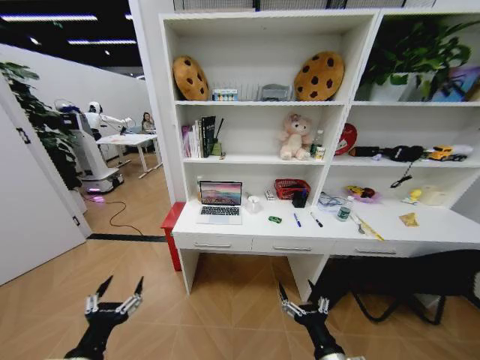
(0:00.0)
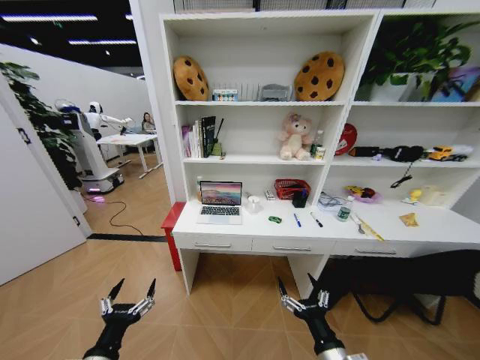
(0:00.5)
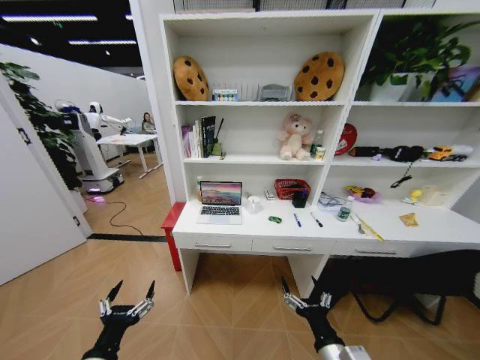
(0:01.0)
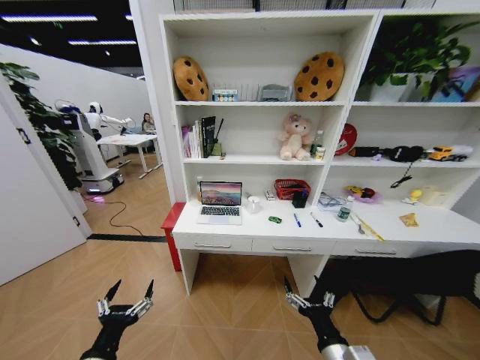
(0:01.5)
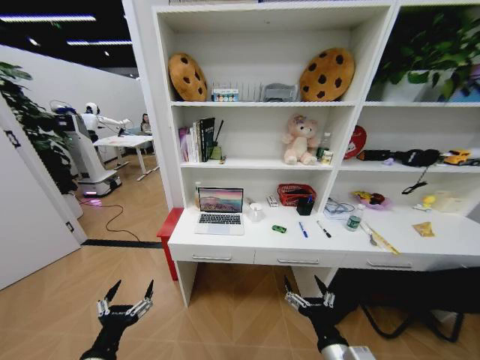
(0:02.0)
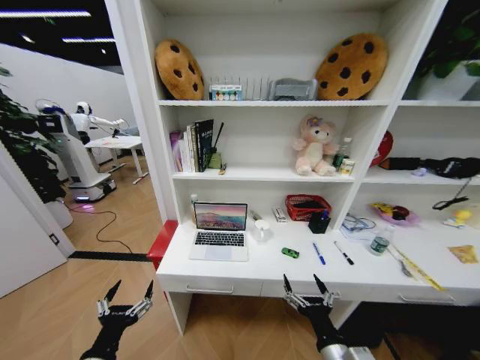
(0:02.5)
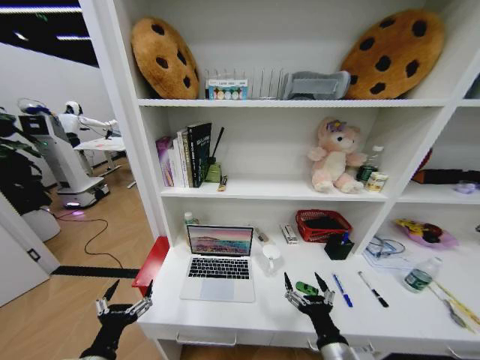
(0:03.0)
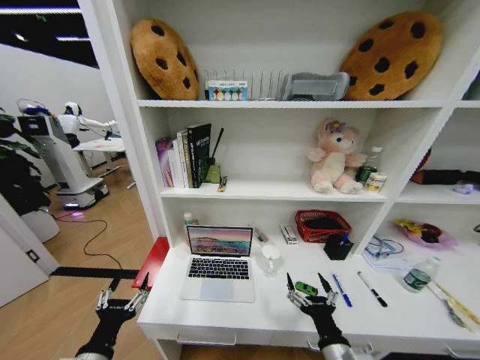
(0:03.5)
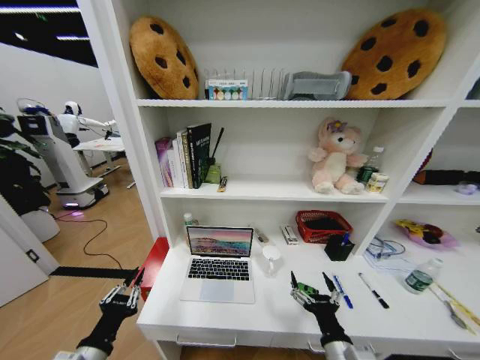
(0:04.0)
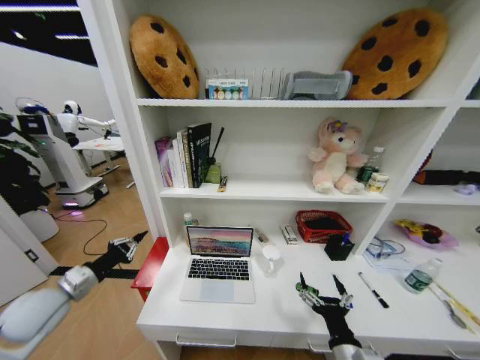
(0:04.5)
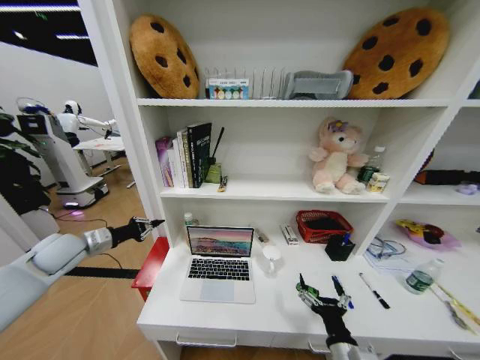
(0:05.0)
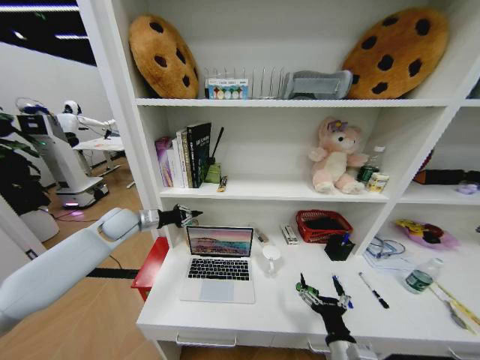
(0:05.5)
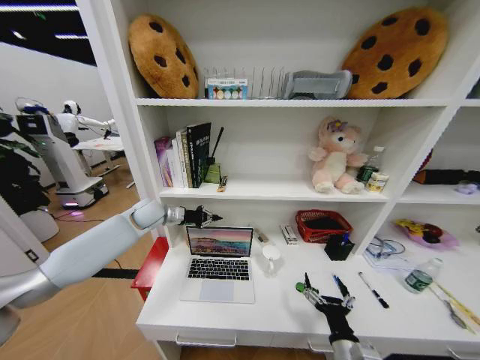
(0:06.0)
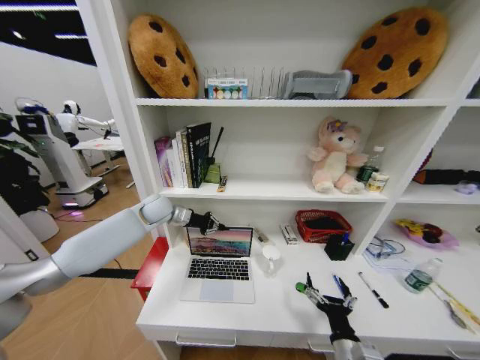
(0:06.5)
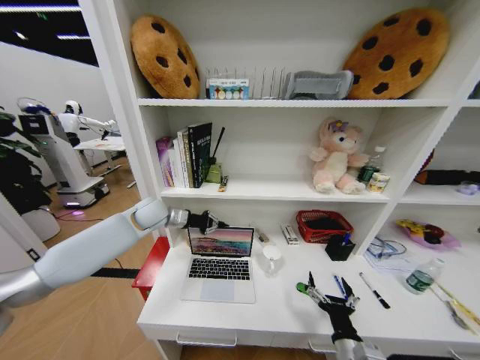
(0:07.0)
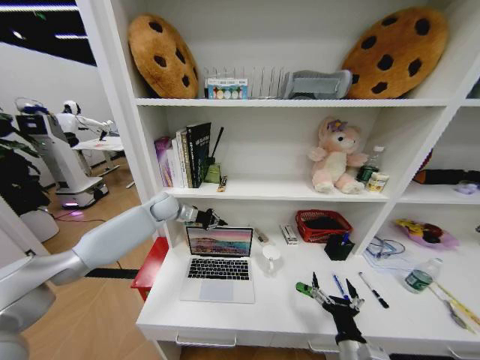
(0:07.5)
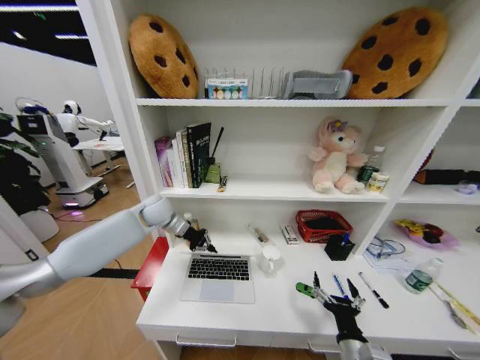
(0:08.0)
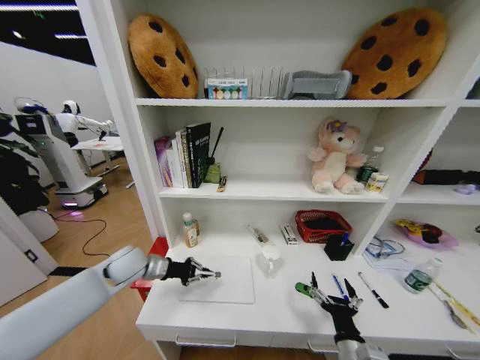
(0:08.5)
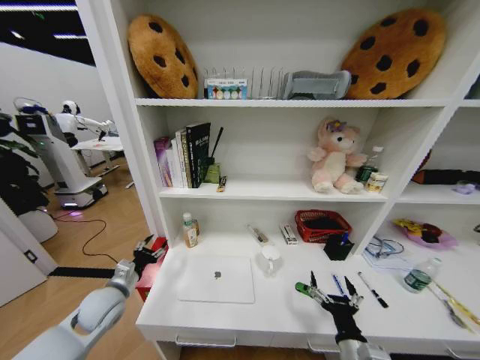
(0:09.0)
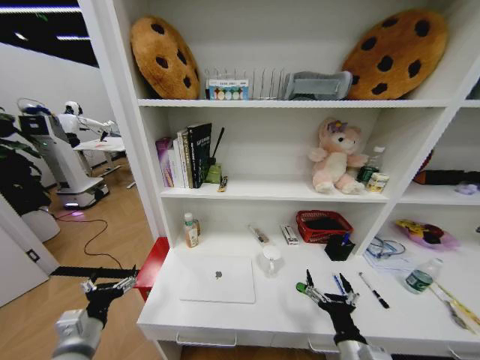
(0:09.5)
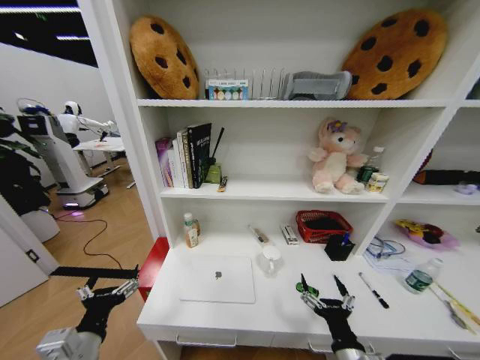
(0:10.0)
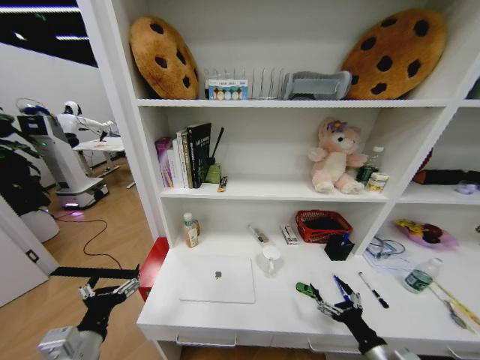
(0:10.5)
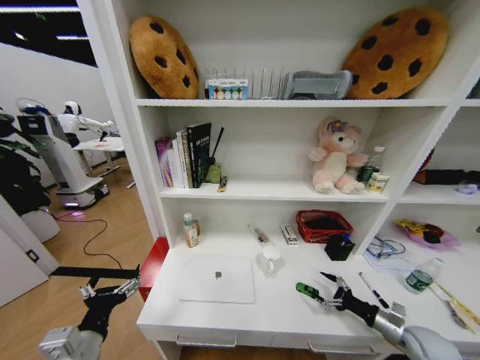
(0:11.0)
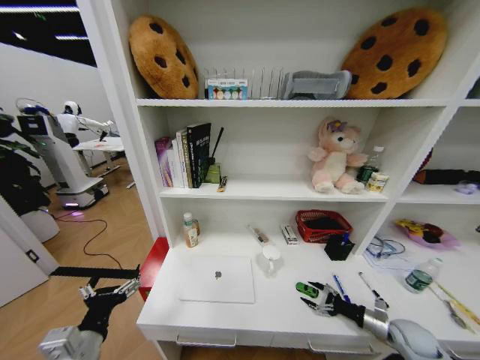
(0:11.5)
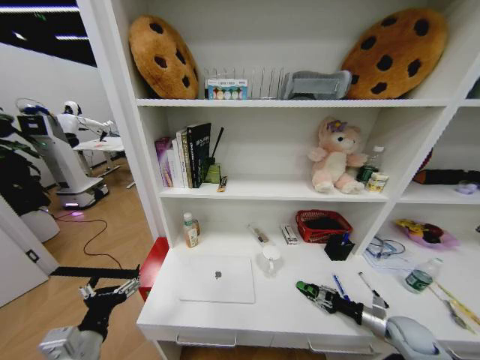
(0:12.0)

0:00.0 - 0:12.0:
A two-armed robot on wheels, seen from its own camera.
Task of the whole recording: Organize the objects on the table.
0:02.0 - 0:04.0: The left gripper closes up.
0:04.0 - 0:06.0: The left gripper moves forward, some 40 cm.
0:08.0 - 0:10.0: The left gripper travels backward by roughly 40 cm, and opens up.
0:10.0 - 0:12.0: The right gripper moves to the right and forward, approximately 30 cm, and closes its fingers.

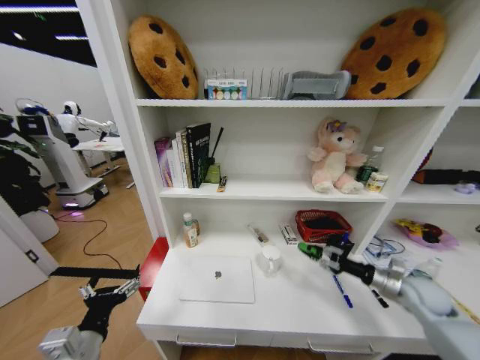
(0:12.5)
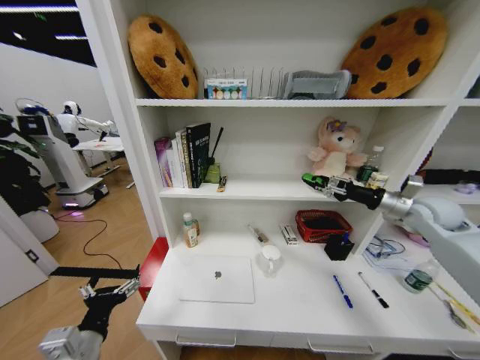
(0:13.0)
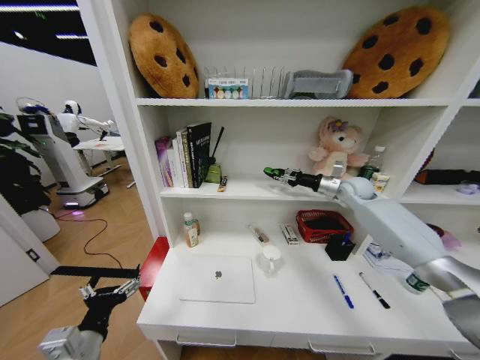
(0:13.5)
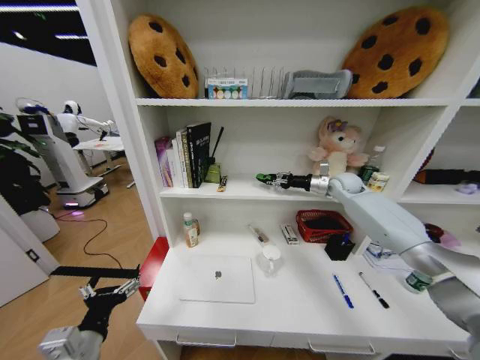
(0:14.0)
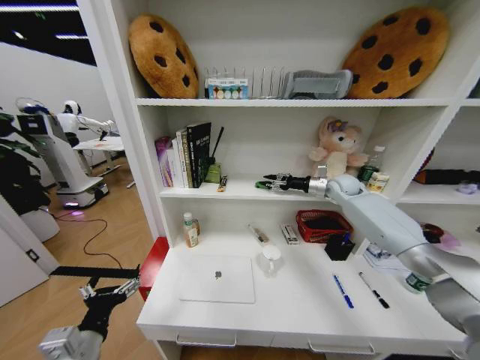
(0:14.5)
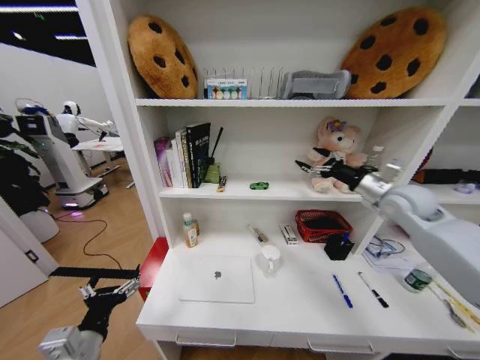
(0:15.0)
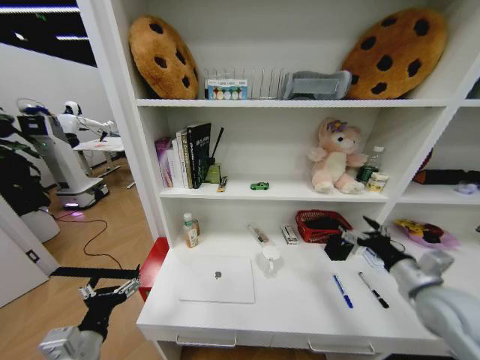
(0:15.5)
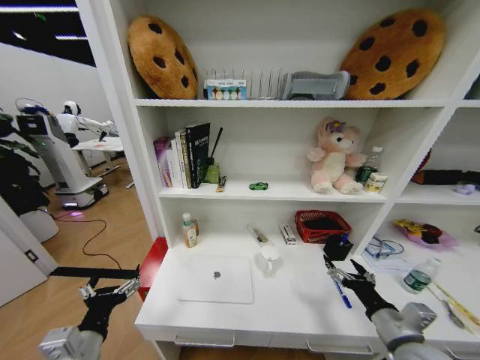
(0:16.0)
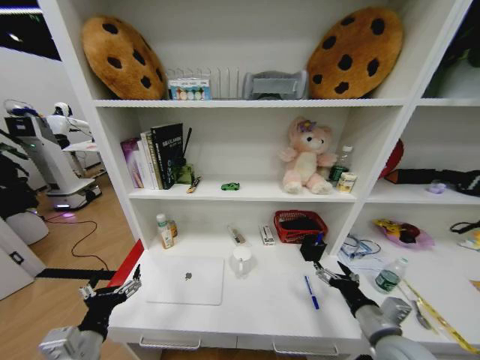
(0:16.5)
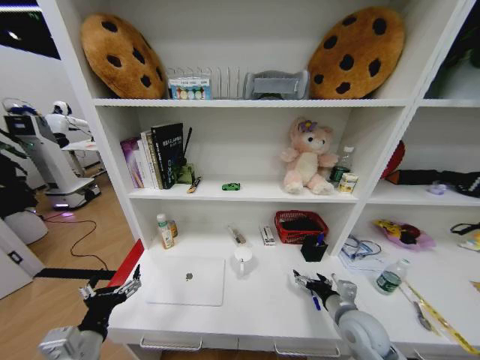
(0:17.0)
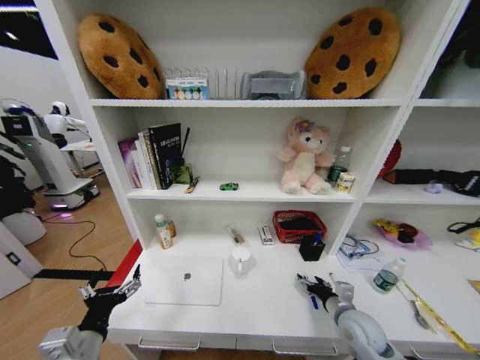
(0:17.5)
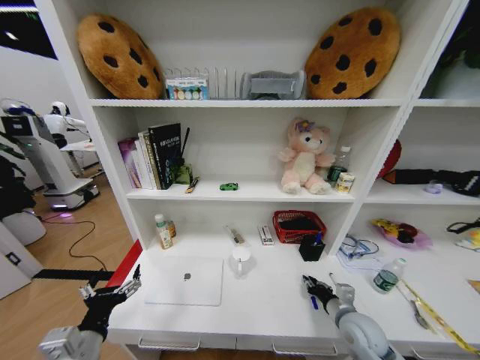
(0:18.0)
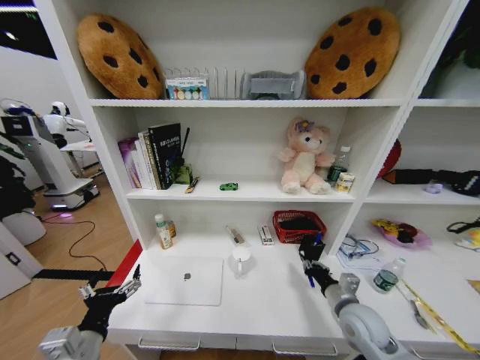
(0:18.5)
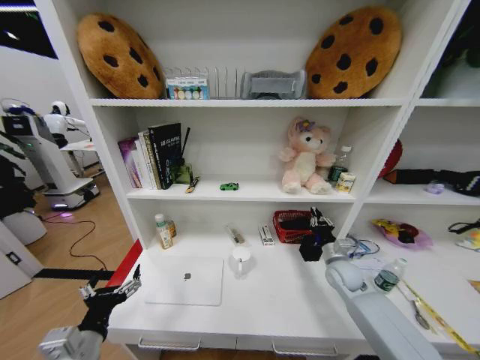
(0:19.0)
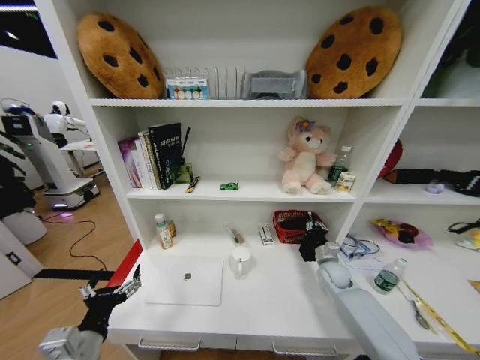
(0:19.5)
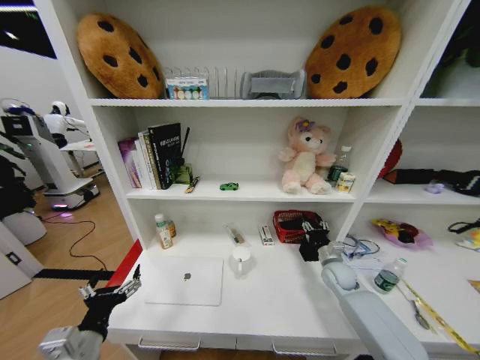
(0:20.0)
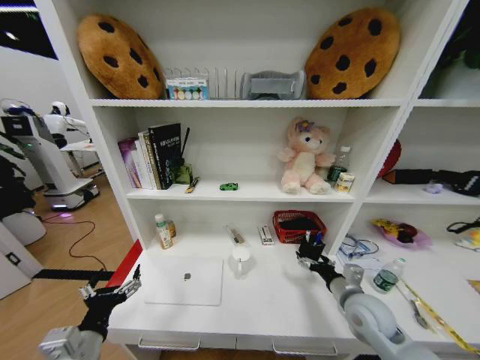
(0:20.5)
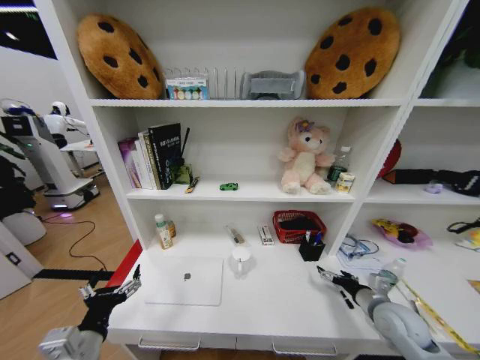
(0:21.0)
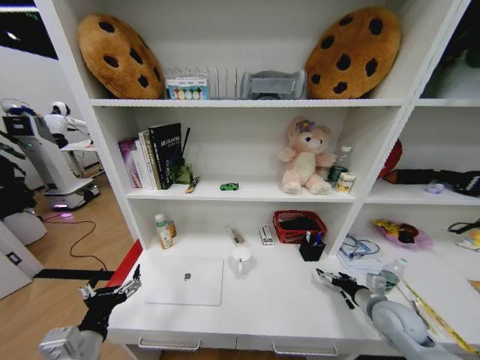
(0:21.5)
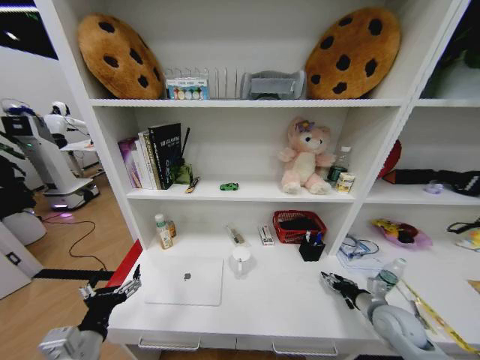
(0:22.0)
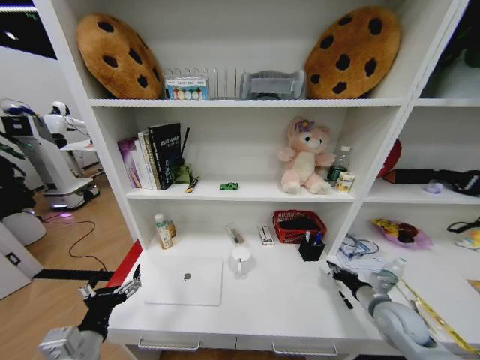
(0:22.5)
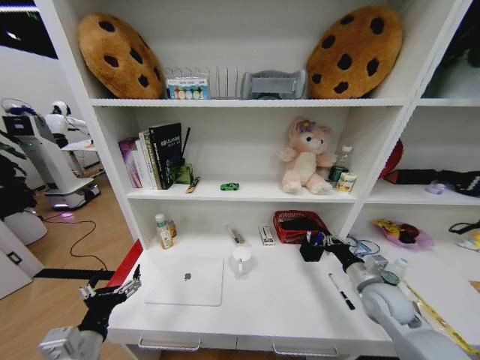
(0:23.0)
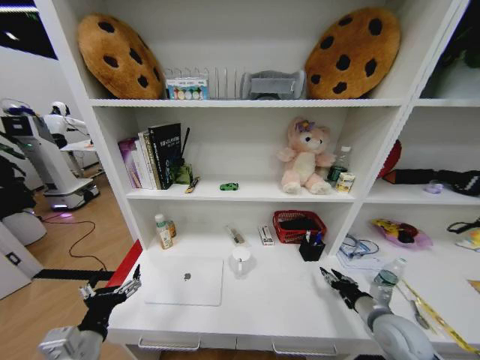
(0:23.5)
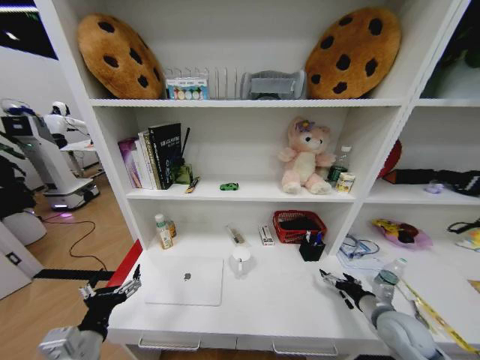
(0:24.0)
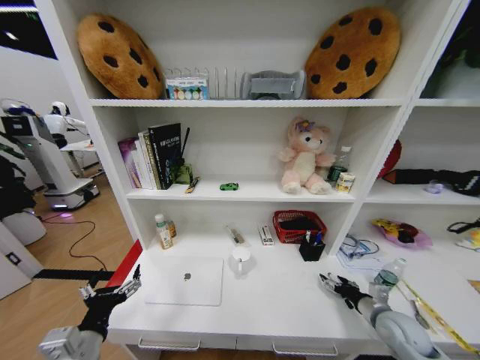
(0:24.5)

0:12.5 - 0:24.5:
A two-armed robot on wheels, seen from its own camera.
Task of the whole recording: Organize the objects on the table.
0:12.5 - 0:14.5: The right gripper travels forward and upward by roughly 35 cm.
0:14.5 - 0:16.5: The right gripper moves backward, roughly 40 cm, and opens.
0:16.5 - 0:18.5: The right gripper heads forward, covering some 10 cm, and closes.
0:18.5 - 0:20.5: The right gripper goes forward and returns, some 15 cm each way, and opens its fingers.
0:20.5 - 0:22.5: The right gripper shifts approximately 10 cm to the right, and closes.
0:22.5 - 0:24.5: The right gripper opens up.

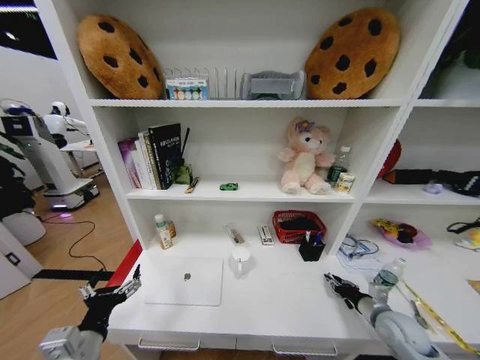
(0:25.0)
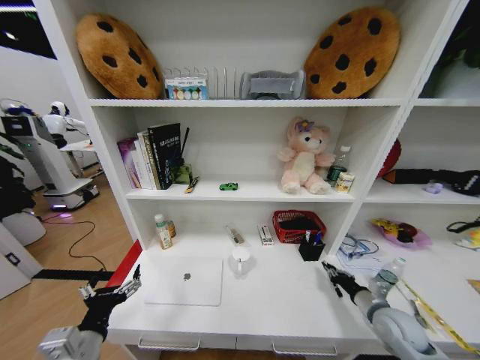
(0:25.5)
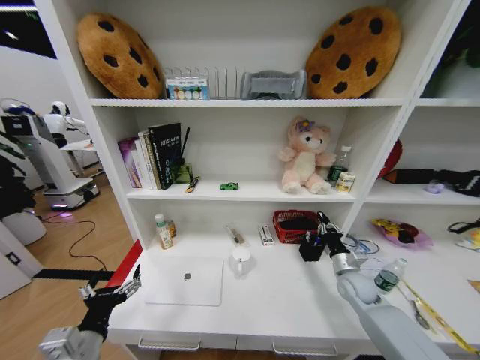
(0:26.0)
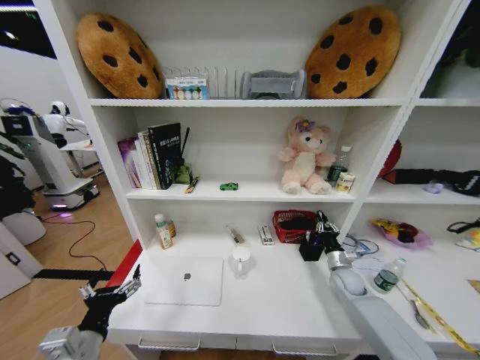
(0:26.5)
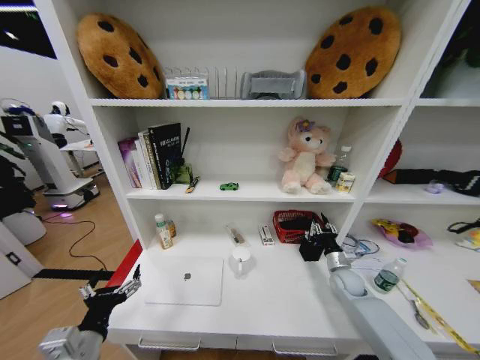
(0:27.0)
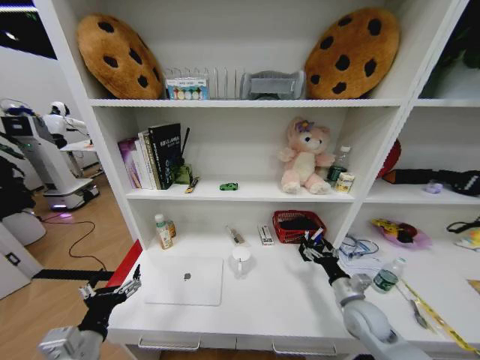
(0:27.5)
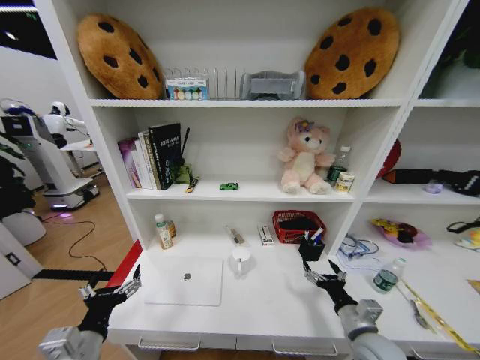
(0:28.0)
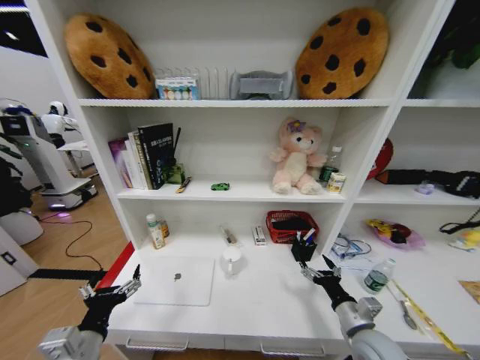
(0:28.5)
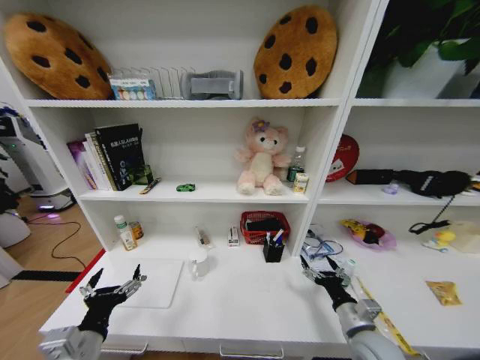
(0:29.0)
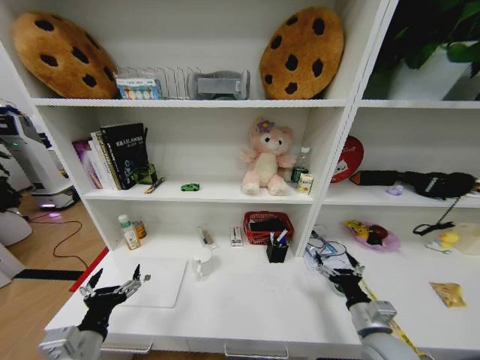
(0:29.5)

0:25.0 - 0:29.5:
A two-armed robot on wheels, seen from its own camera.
Task of the whole recording: Organize the objects on the table.
0:25.0 - 0:27.0: The right gripper heads forward, covering approximately 15 cm.
0:27.0 - 0:29.5: The right gripper travels backward by about 20 cm, and opens.
